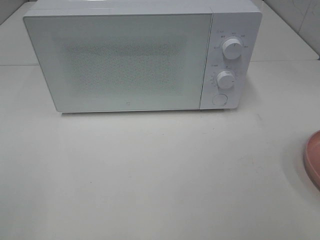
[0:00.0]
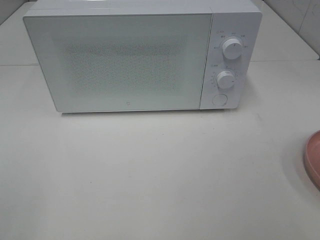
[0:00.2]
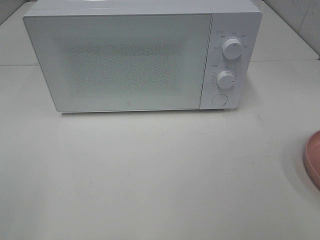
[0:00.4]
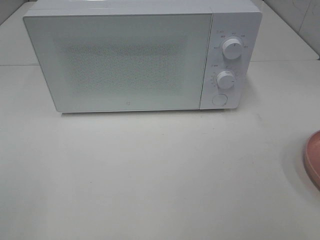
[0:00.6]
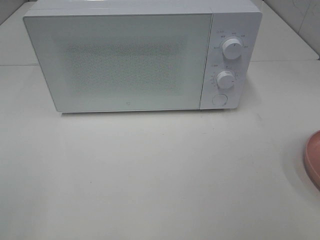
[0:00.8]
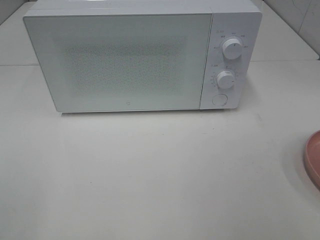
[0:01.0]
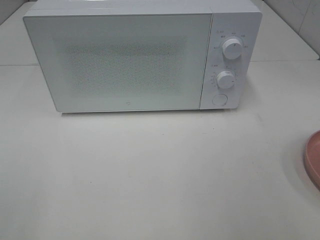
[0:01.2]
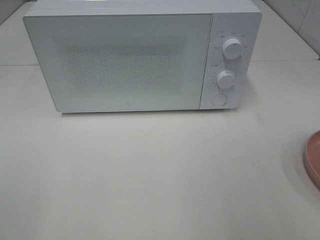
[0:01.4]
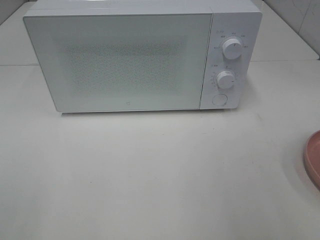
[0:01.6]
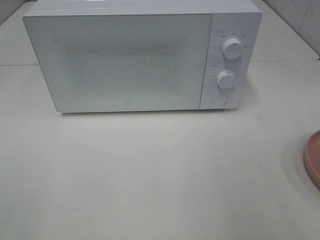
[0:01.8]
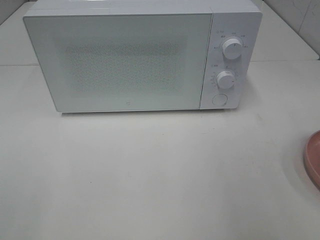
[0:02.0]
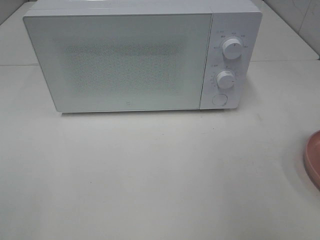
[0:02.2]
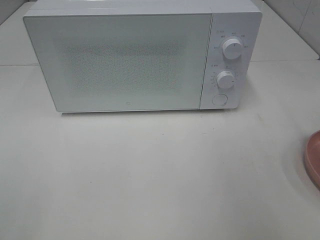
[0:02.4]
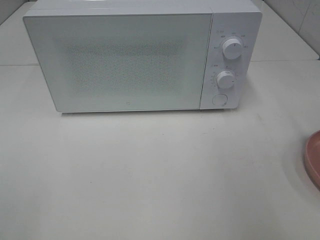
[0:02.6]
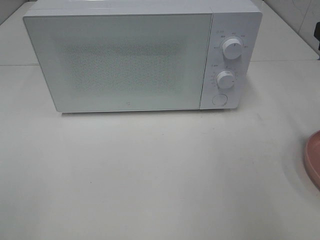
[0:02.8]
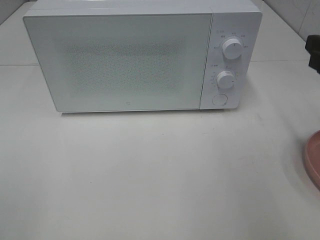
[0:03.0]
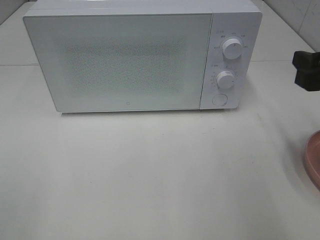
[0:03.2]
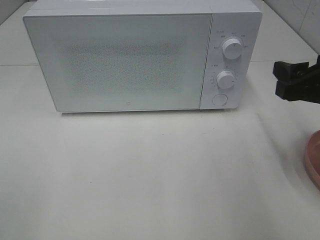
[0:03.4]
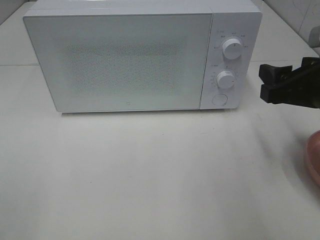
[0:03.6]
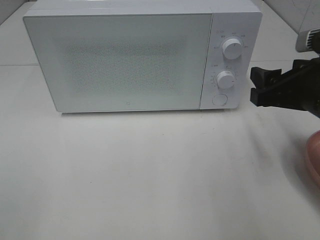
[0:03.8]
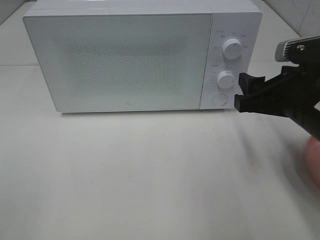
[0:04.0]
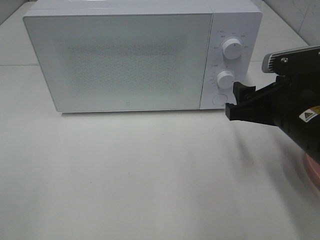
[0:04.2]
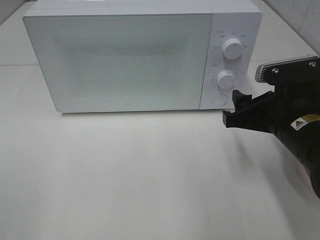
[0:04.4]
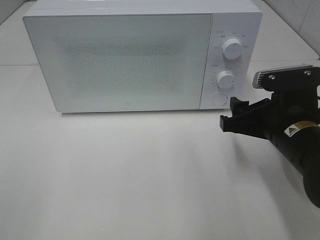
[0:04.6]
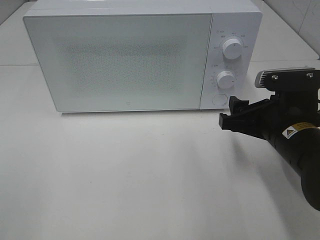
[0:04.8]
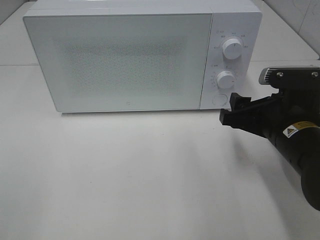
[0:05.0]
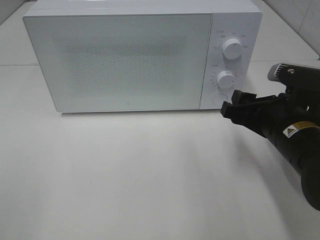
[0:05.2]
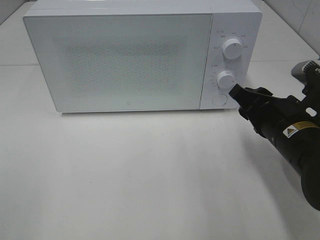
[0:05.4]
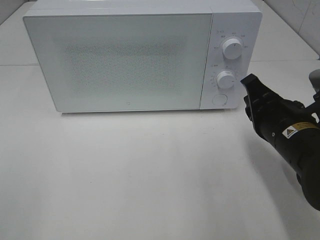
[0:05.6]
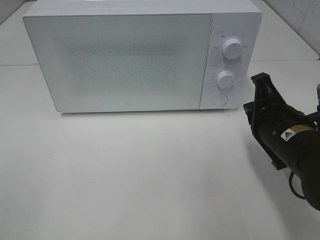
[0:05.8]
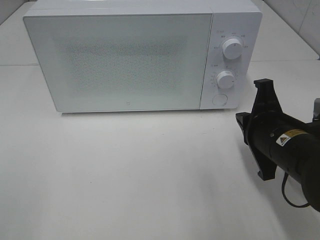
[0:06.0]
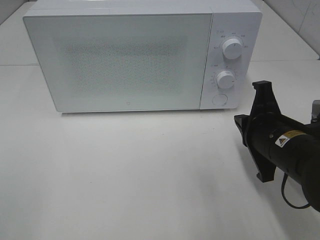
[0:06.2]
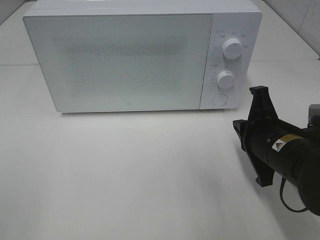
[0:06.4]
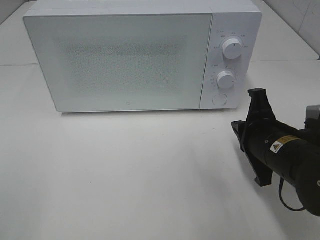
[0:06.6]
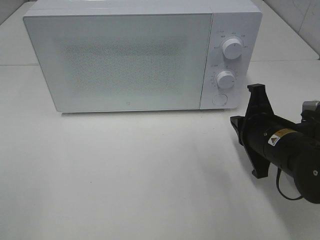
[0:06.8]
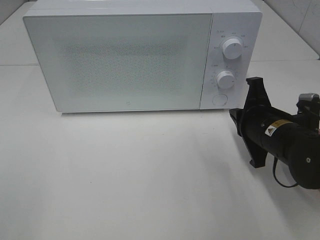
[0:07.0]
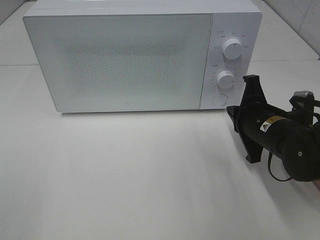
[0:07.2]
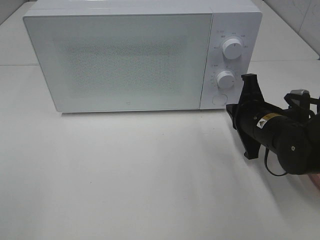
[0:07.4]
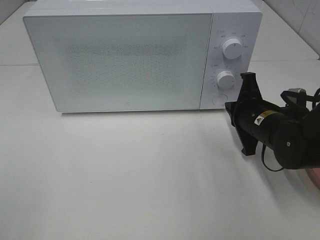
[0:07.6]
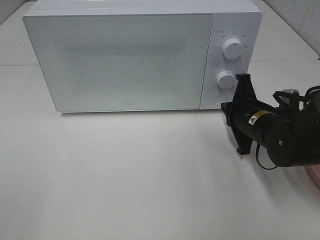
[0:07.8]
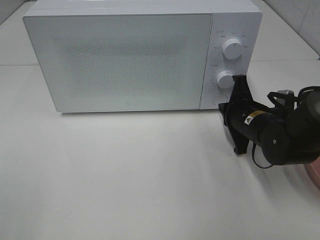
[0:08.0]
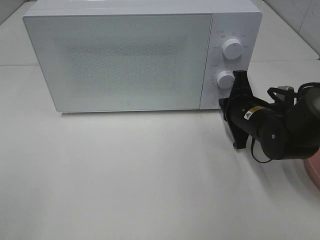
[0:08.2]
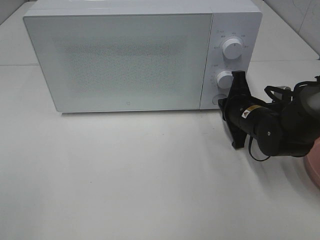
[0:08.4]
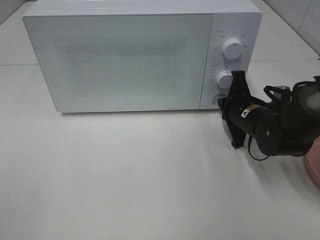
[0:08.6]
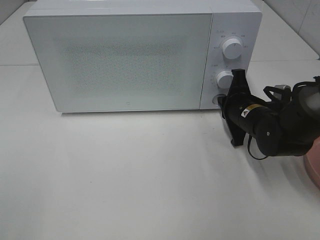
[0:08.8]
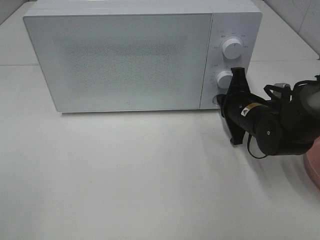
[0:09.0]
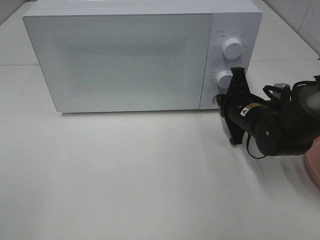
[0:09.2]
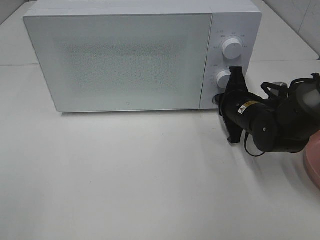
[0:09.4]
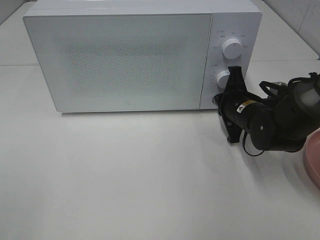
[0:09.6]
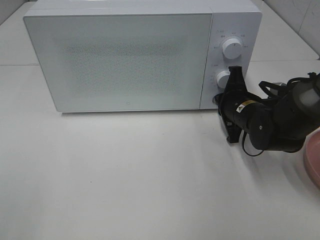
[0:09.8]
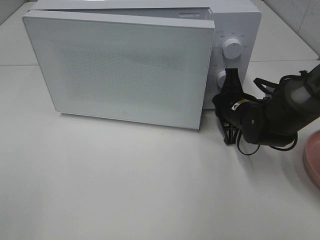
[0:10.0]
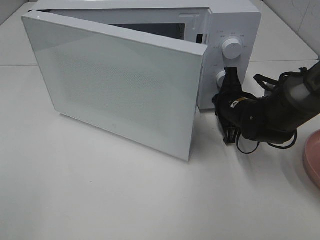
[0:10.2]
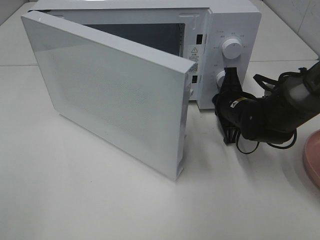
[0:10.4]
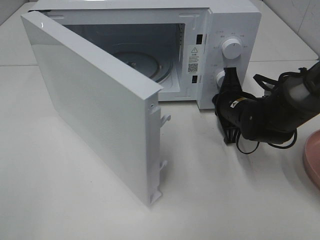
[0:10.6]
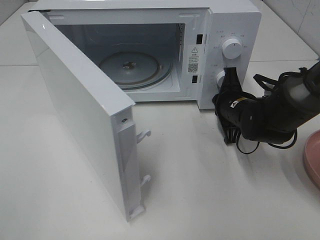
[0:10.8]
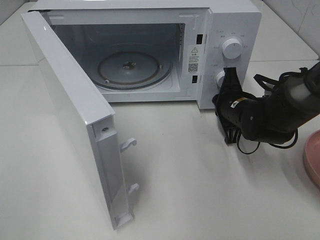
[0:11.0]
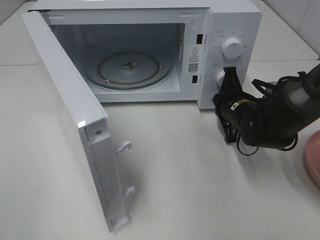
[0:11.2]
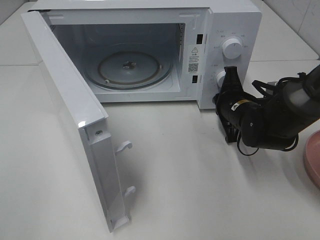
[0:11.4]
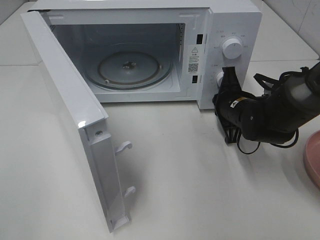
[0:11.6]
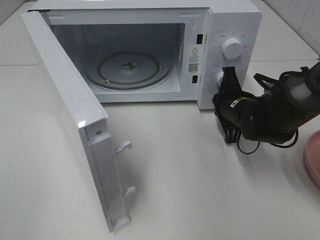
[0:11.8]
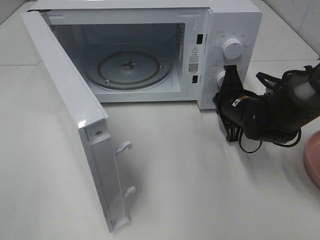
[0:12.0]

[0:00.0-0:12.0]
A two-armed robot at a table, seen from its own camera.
Task of the whole recording: Heat the burger.
0:01.6 to 0:03.0: The right gripper moves forward and downward, roughly 15 cm.
0:03.0 to 0:04.4: The right gripper heads to the left and downward, covering some 15 cm.
0:04.4 to 0:06.0: The right gripper closes up.
0:06.0 to 0:07.6: The right gripper goes some 10 cm forward.
0:07.6 to 0:09.0: The grippers move only a little.

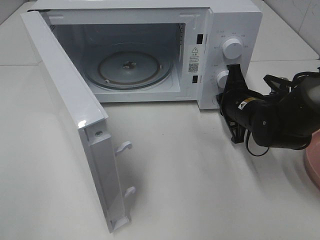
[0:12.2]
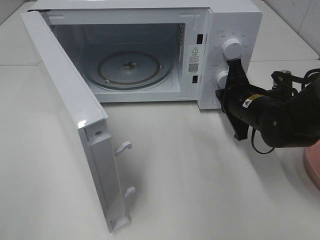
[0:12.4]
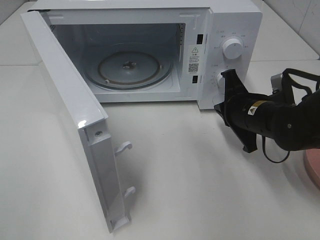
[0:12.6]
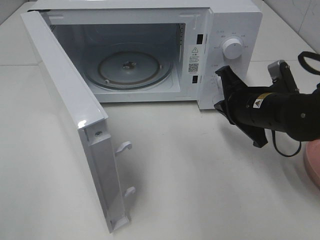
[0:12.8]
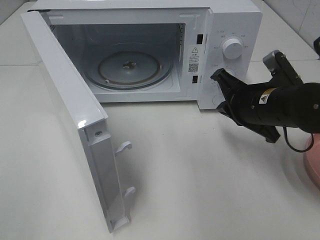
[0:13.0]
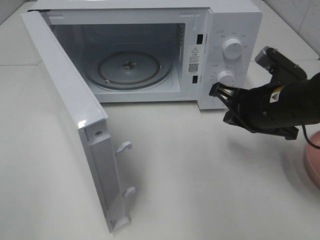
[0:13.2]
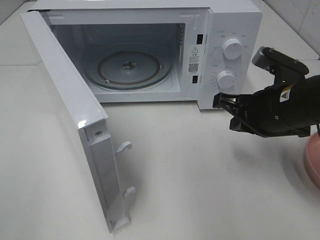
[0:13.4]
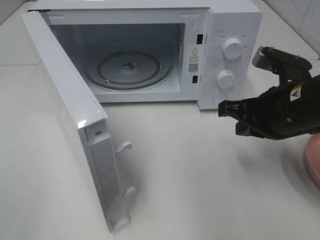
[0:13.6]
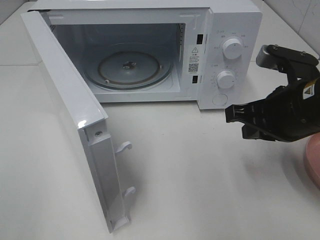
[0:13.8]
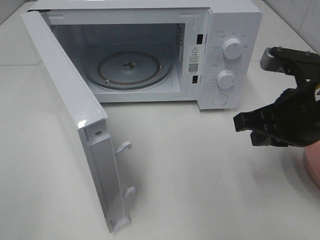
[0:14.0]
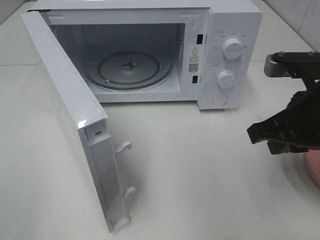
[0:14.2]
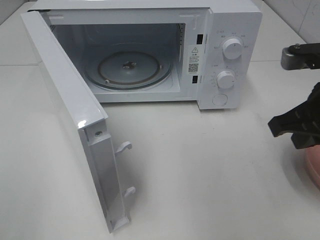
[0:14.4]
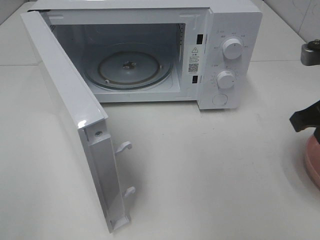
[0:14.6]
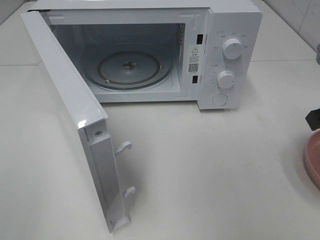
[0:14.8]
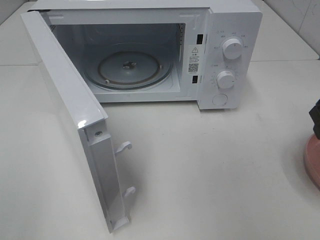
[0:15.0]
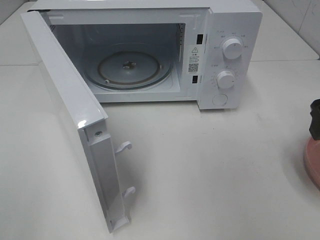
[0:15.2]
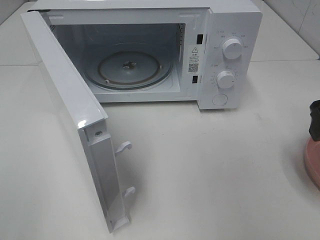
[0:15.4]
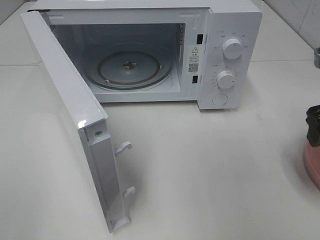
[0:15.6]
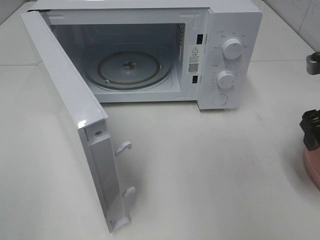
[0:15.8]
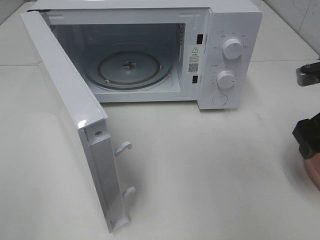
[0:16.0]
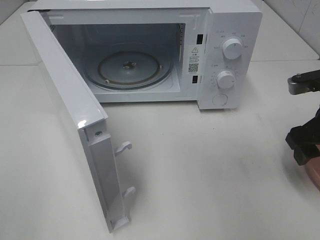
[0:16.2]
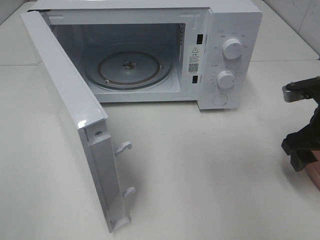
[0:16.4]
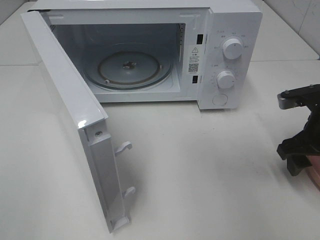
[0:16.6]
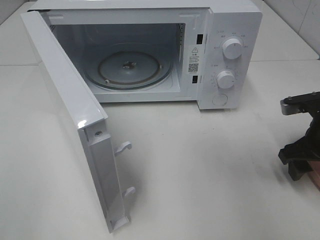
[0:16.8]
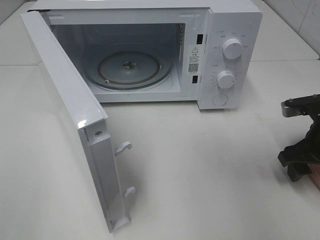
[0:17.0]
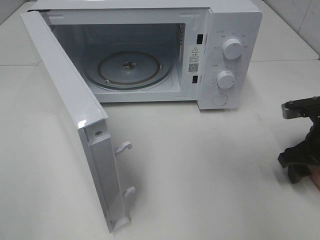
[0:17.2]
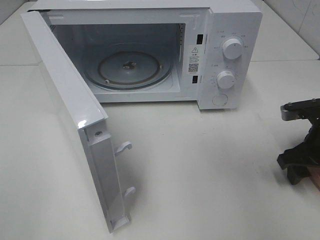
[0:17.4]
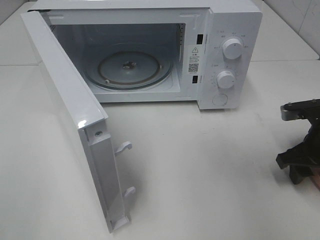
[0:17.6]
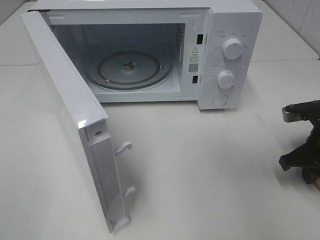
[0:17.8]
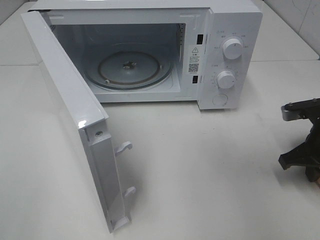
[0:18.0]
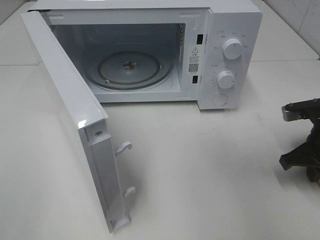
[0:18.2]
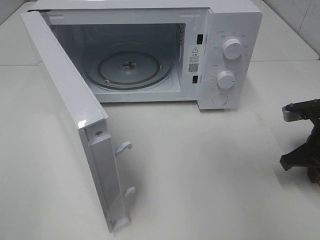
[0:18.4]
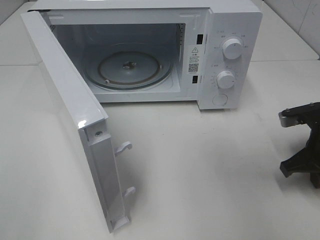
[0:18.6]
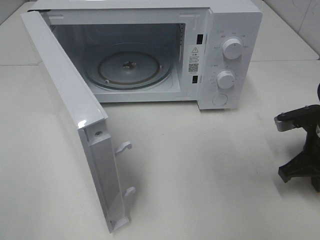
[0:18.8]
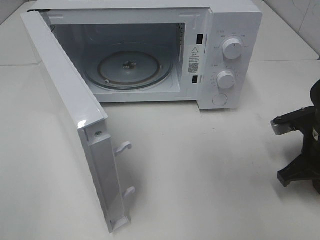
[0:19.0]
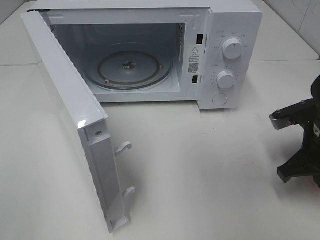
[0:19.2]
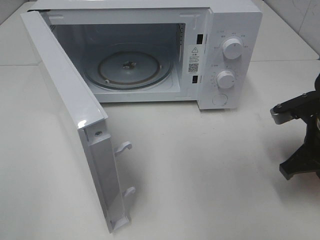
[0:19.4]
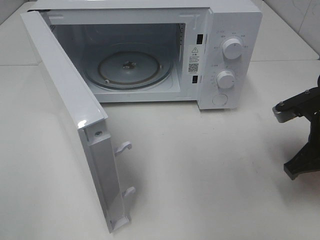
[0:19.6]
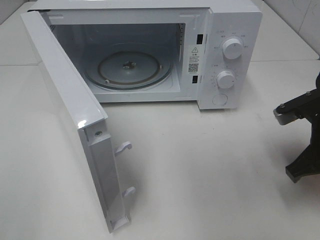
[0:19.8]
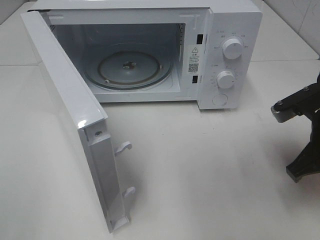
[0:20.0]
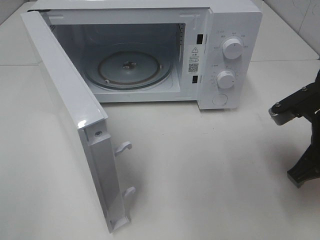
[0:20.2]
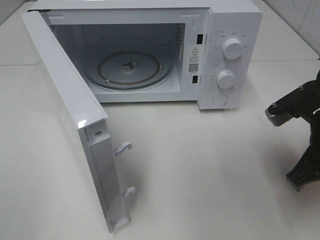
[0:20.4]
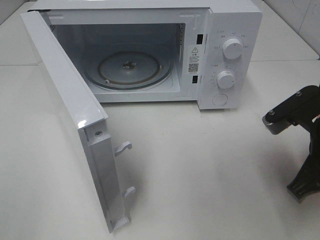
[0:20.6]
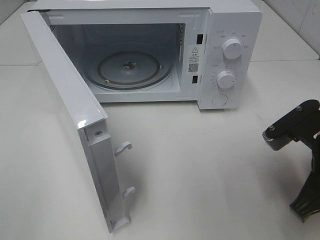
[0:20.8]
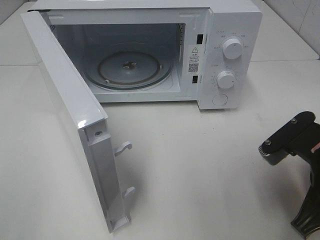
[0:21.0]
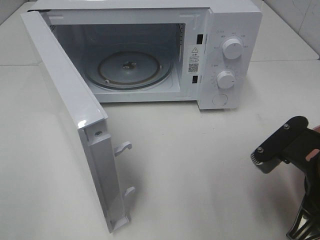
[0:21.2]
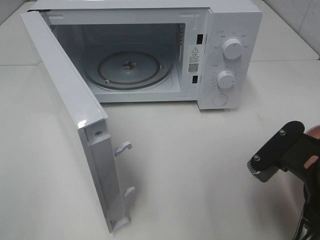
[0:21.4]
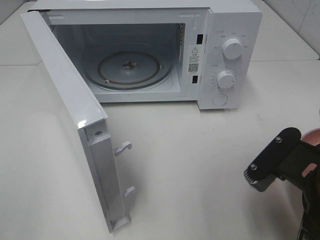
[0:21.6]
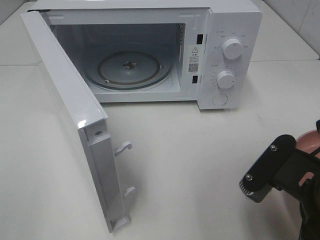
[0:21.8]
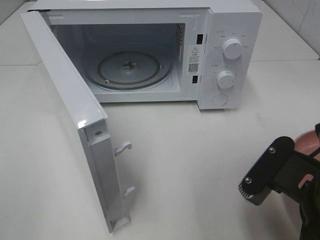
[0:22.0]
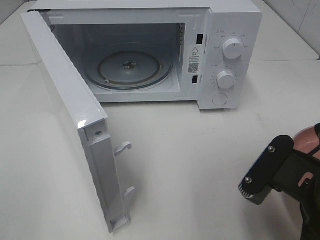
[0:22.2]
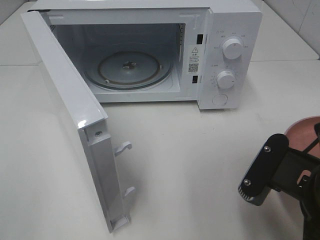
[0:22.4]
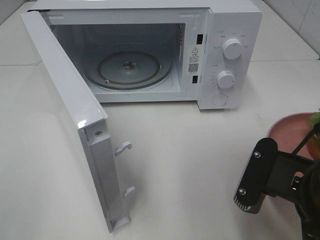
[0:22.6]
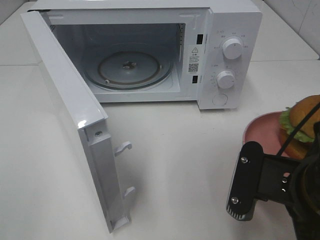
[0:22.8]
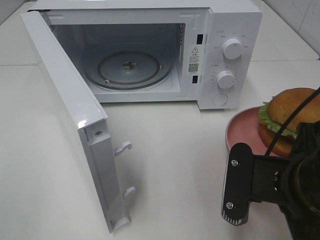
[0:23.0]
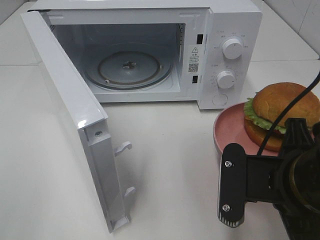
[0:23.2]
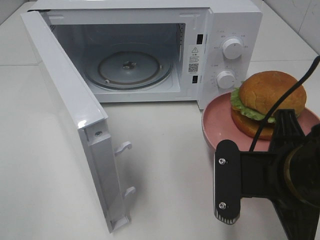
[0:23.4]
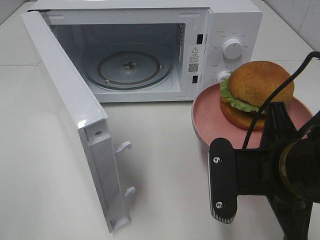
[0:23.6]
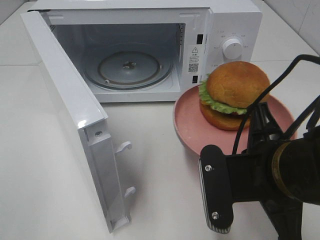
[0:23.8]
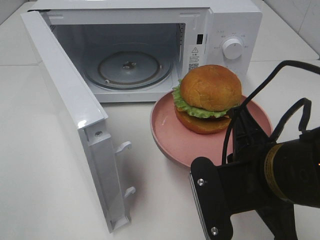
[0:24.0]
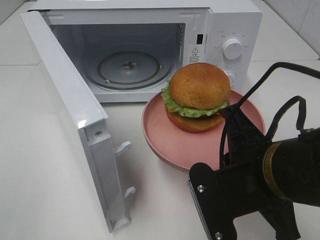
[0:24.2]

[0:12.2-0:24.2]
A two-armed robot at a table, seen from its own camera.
Task of the whole recording: Heat the burger.
Step, 0:12.4 to 0:19.6: Right hand: grab the plate with the hamburger.
0:12.2 to 0:13.8: The right gripper travels backward and upward by some 15 cm.
0:13.8 to 0:15.2: The right gripper goes roughly 10 cm to the right, and opens its fingers.
0:15.2 to 0:16.6: The right gripper moves downward, some 10 cm.
0:16.6 to 0:18.2: The right gripper closes up.
0:18.2 to 0:19.8: The right gripper moves about 10 cm.
0:19.8 to 0:21.2: The right gripper moves backward and to the left, some 10 cm.
0:22.6 to 0:24.2: The right gripper moves approximately 5 cm.
